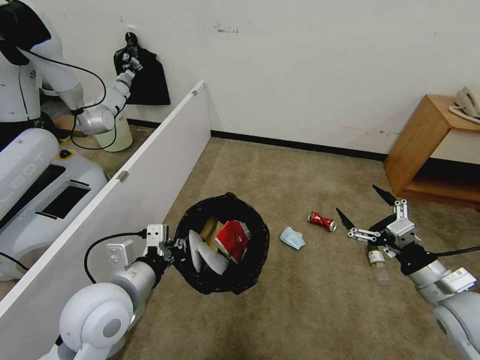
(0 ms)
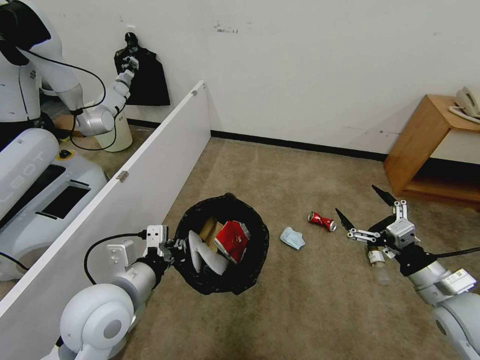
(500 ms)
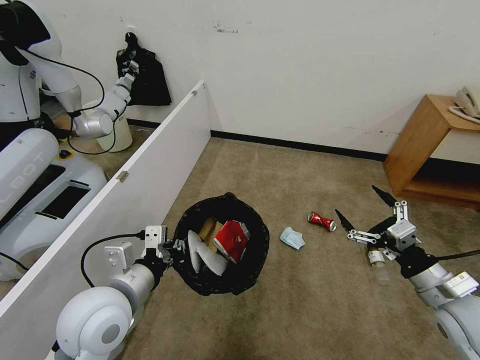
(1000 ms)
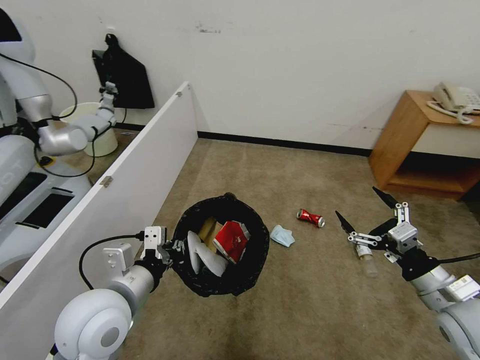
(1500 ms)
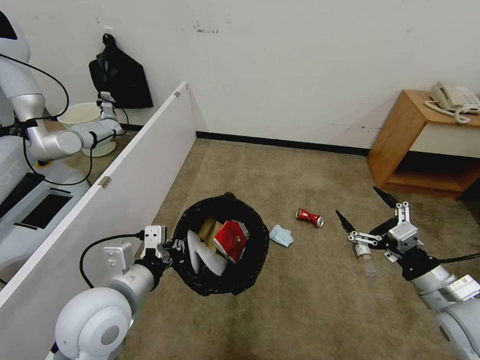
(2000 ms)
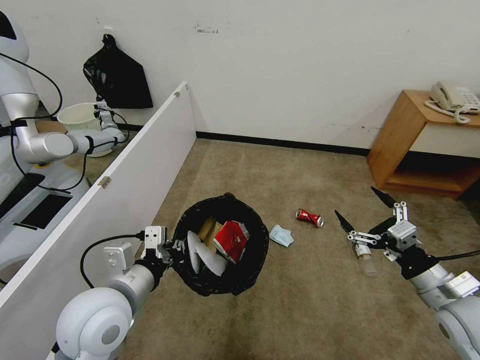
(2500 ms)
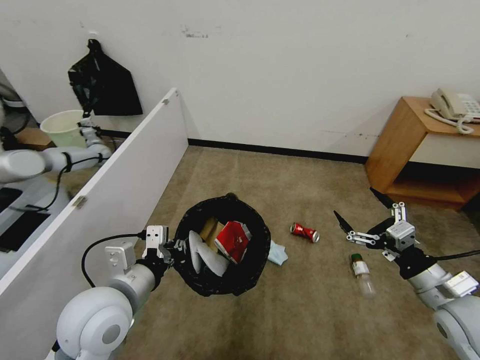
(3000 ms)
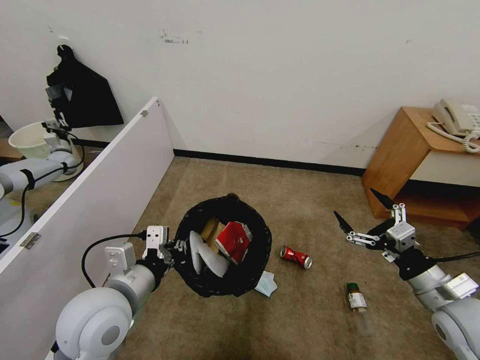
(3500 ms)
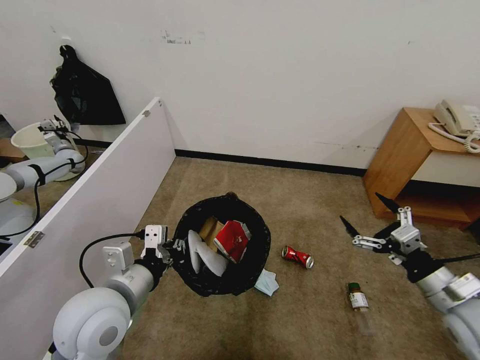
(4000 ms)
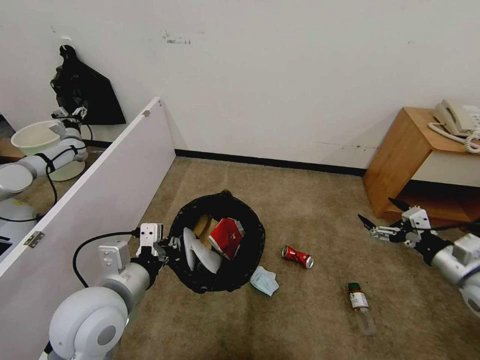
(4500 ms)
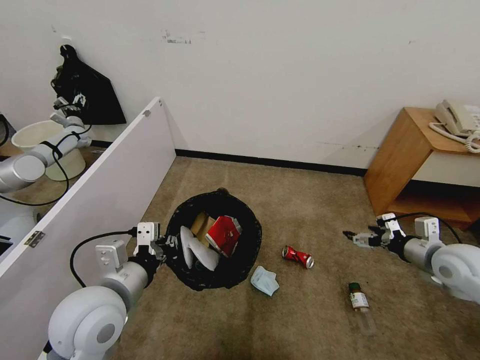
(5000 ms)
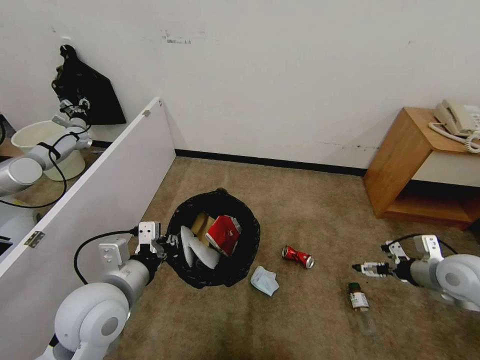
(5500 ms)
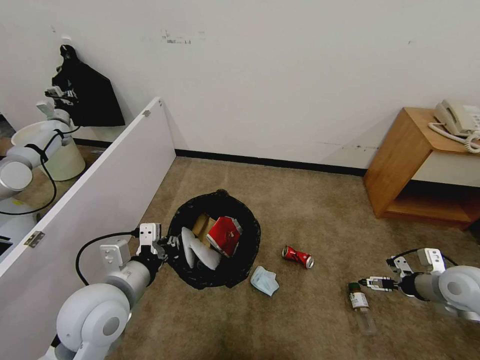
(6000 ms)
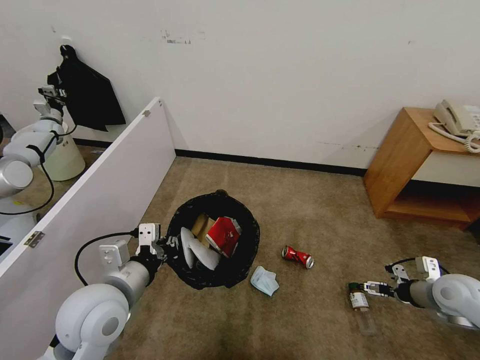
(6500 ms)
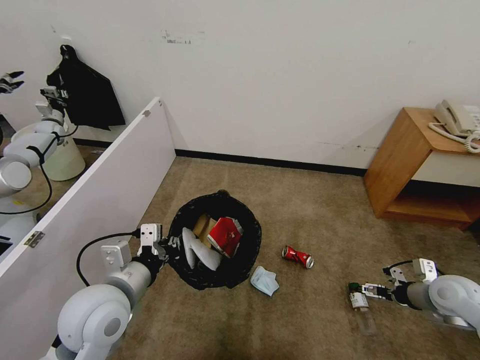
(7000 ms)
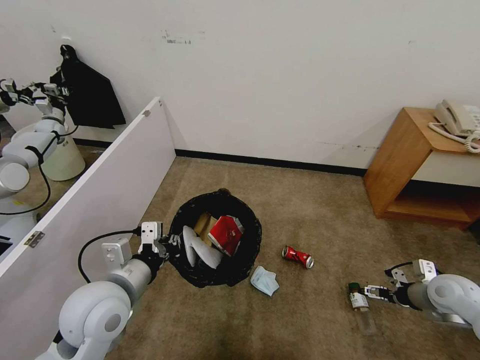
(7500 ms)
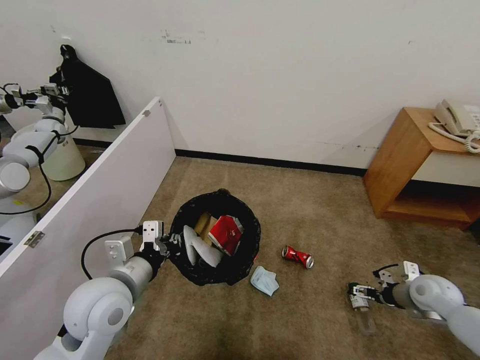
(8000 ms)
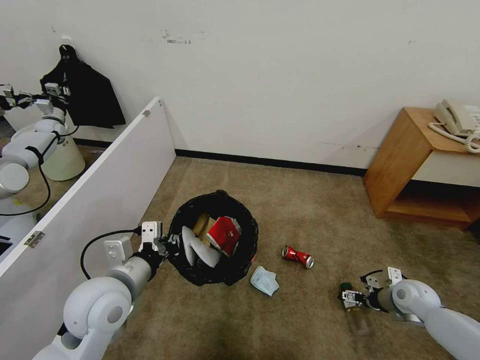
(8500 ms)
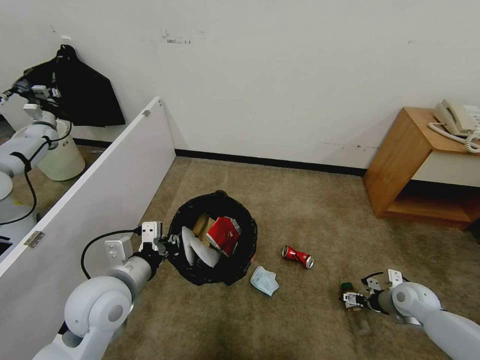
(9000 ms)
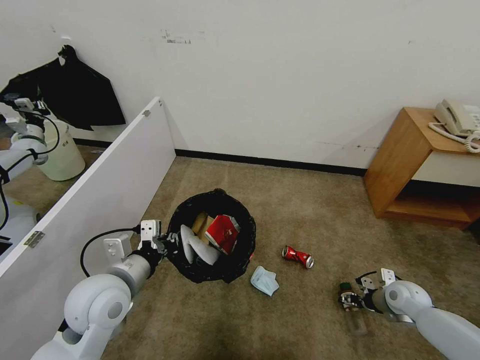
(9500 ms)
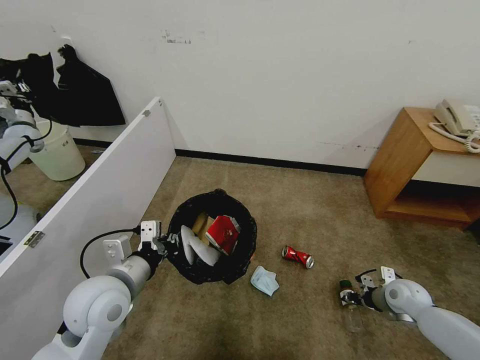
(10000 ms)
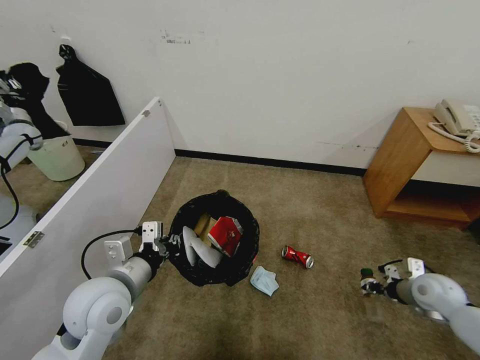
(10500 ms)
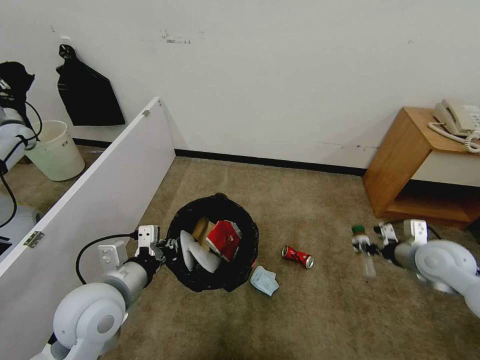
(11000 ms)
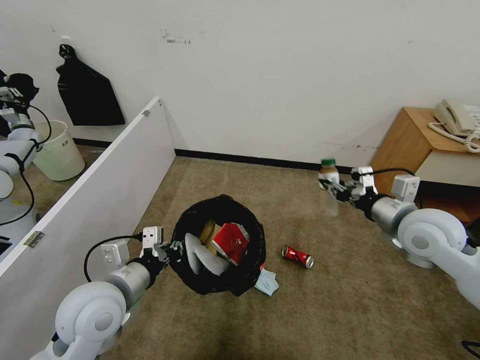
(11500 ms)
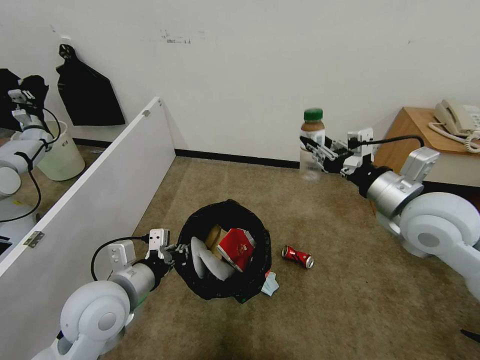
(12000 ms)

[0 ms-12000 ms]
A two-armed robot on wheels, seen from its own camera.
Task of the whole recording: Pick up the trash bin and place the garbage on the floor into it.
4000 ms to 6000 ms: The right gripper goes about 10 cm forward and to the right.
6000 ms to 8000 ms: The right gripper moves downward, some 10 cm.
8000 ms to 10000 ms: The right gripper changes place by roughly 5 cm, and closes.
10000 ms to 12000 ms: The right gripper travels upward and to the left by some 35 cm.

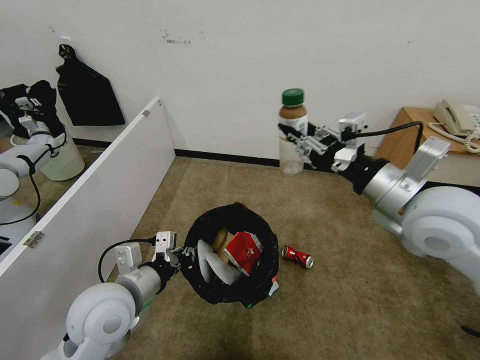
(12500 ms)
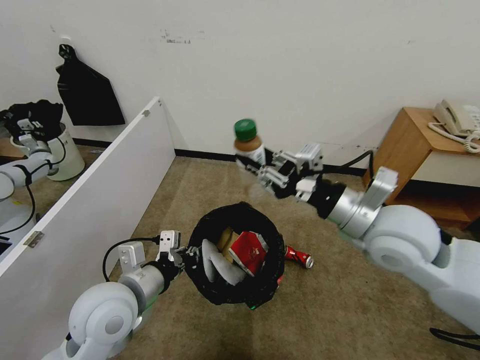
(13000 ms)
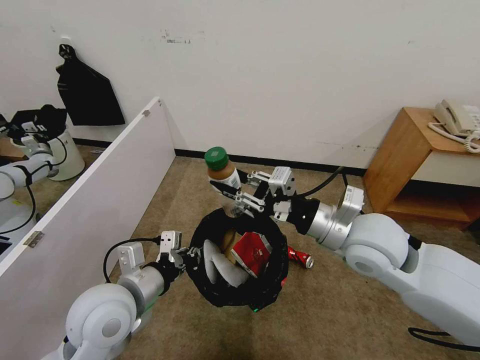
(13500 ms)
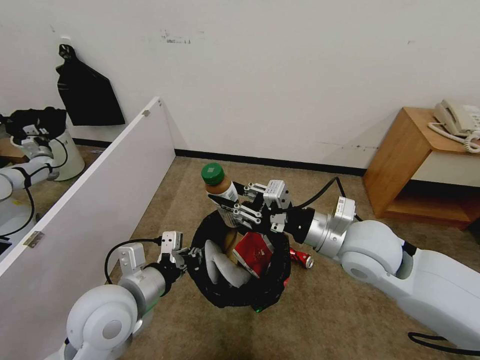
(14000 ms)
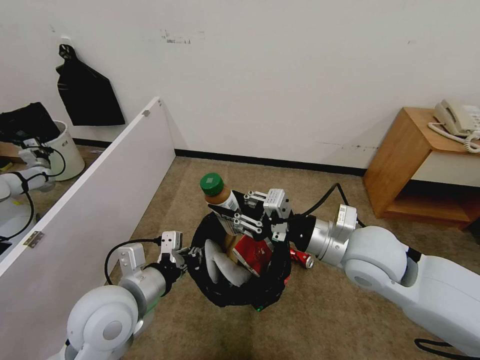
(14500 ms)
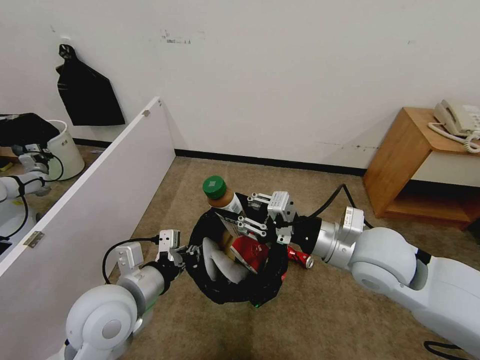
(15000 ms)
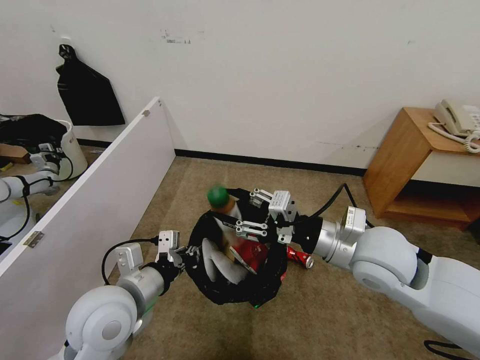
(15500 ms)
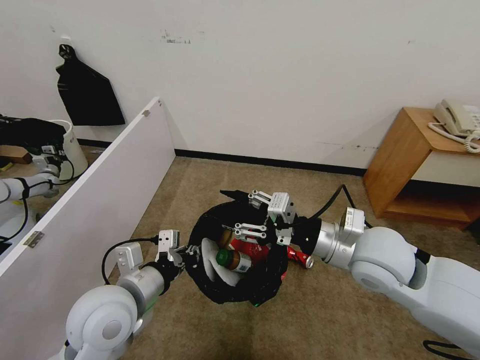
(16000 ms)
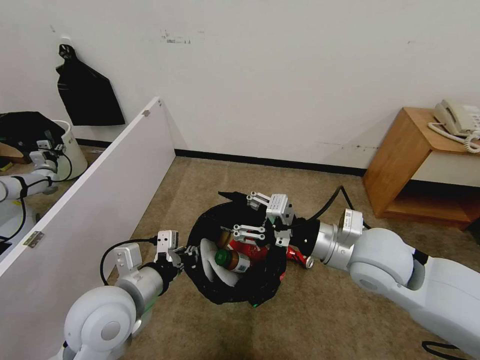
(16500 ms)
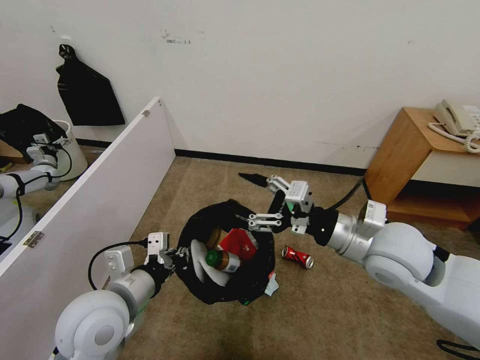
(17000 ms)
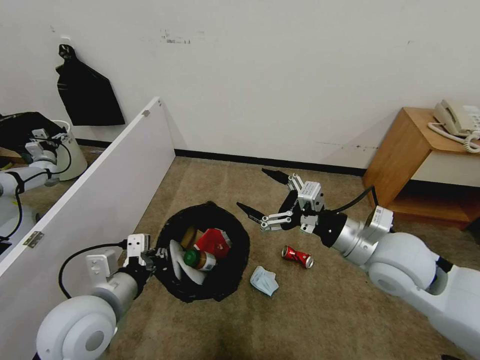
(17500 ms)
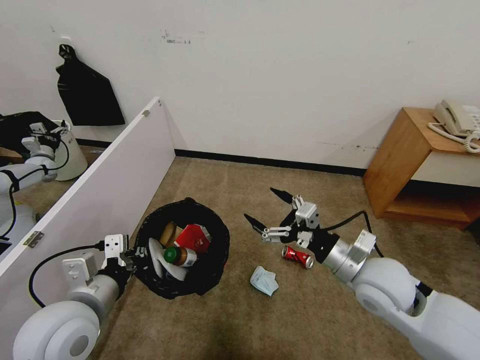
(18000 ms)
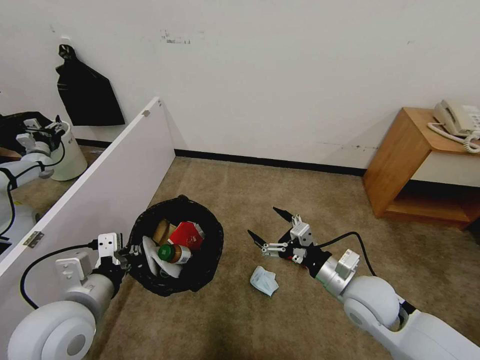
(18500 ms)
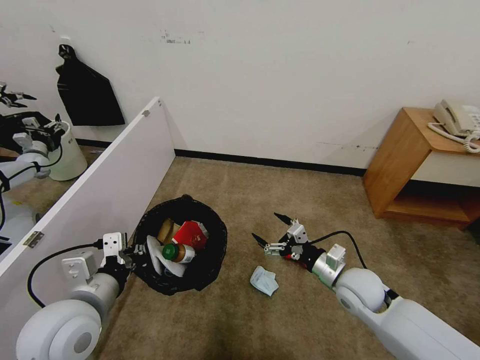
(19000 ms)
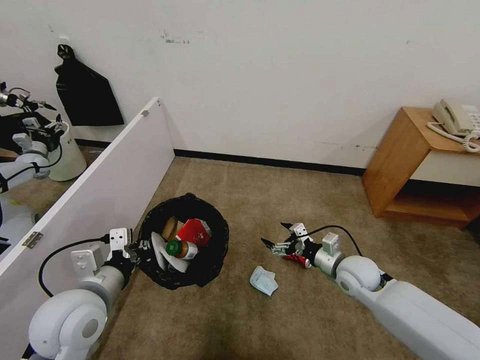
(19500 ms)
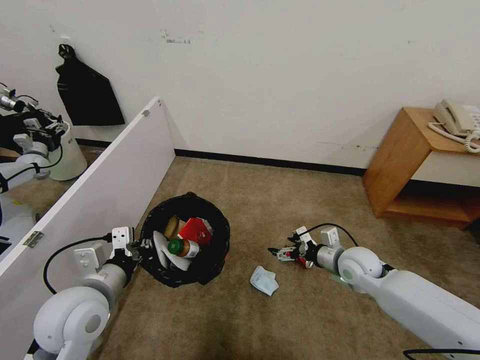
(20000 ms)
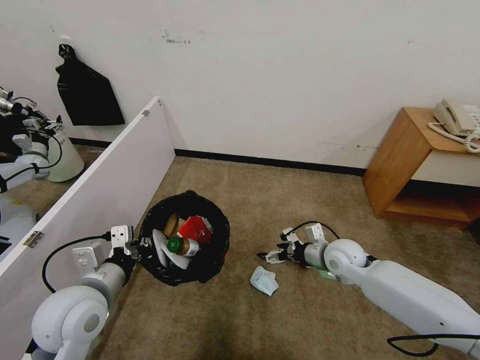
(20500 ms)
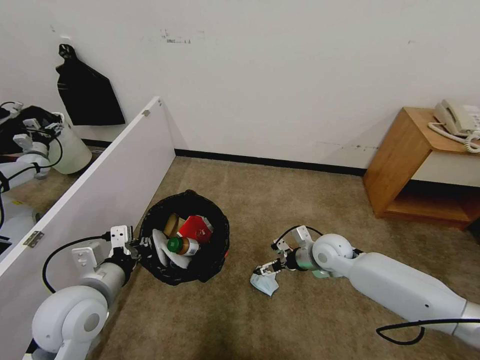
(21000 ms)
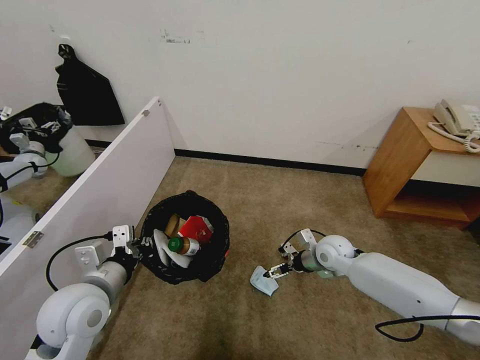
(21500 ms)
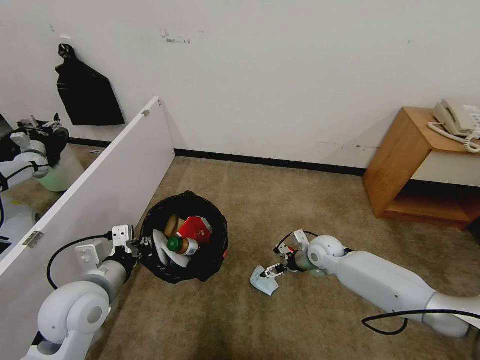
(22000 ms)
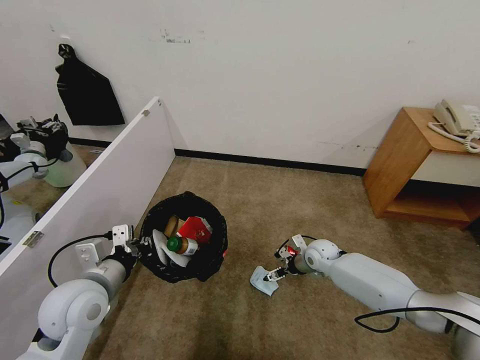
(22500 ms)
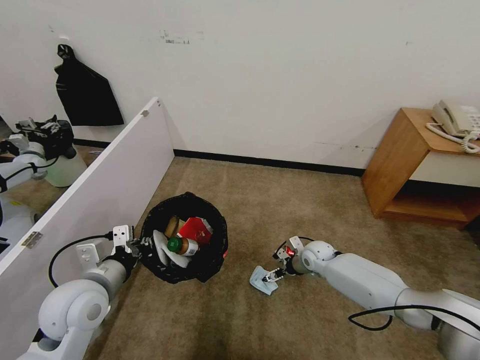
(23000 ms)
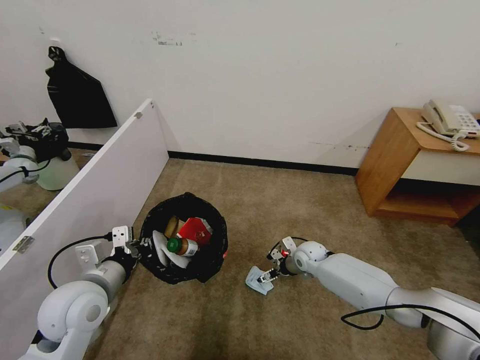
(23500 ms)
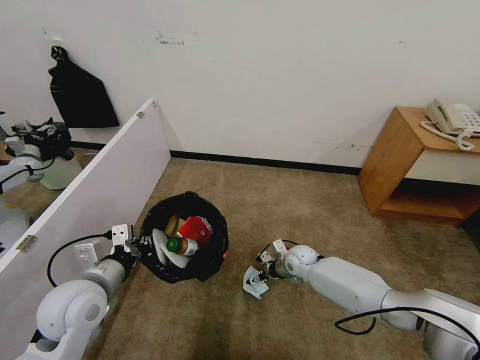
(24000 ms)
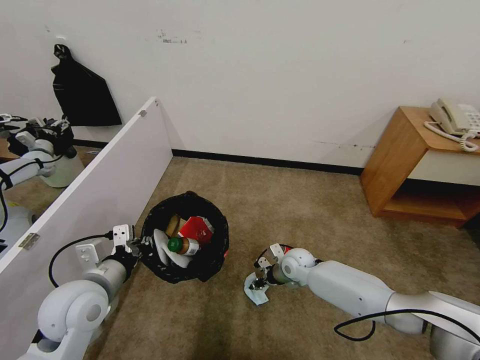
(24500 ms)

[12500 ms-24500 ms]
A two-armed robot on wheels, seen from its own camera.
Task of the whole recording: Pick up the trash bin and place the garbage on the floor into it.
12500 ms to 14500 ms: The right gripper travels downward and to the left by approximately 10 cm.
14500 ms to 16500 ms: Neither gripper changes place.
16500 ms to 18500 ms: The left gripper shifts some 5 cm to the left. Meanwhile the right gripper goes some 15 cm downward, and opens.
18500 ms to 20500 ms: The right gripper heads forward, covering some 10 cm.
20500 ms to 22500 ms: The right gripper shifts some 10 cm downward and forward.
22500 ms to 24500 ms: The right gripper is displaced to the left by approximately 10 cm, and closes up.

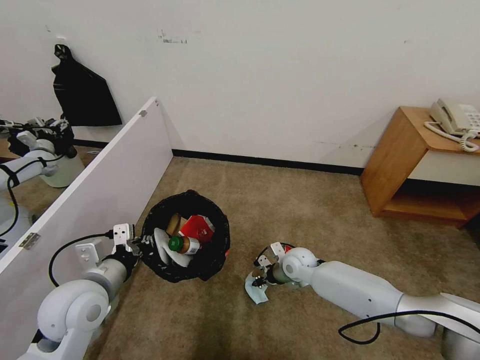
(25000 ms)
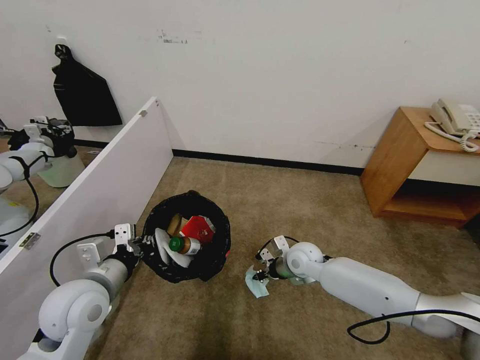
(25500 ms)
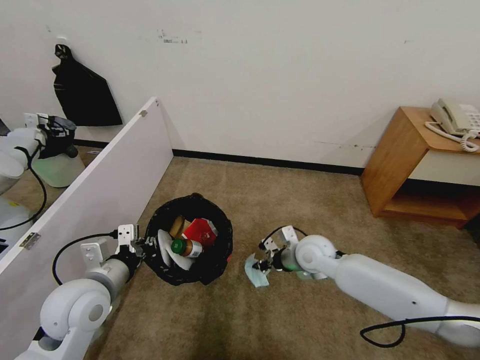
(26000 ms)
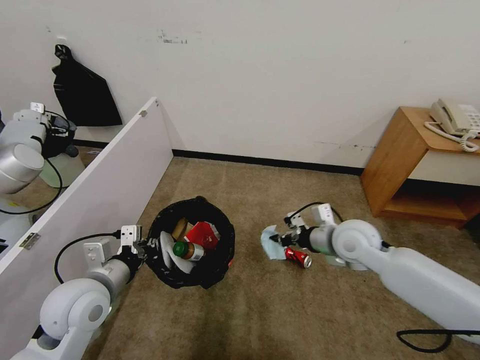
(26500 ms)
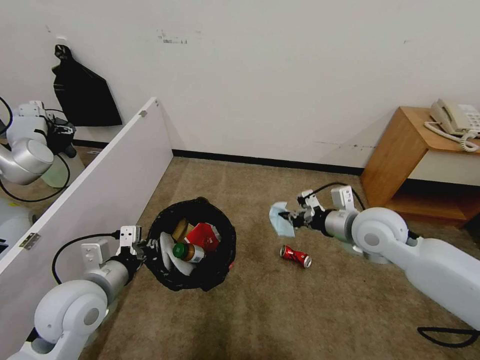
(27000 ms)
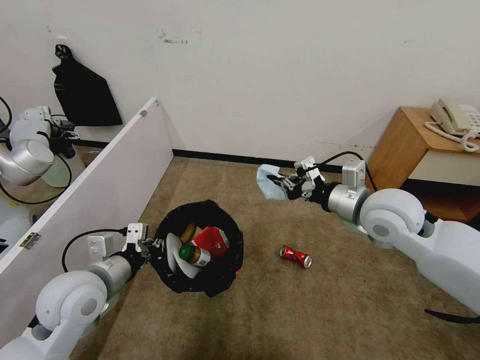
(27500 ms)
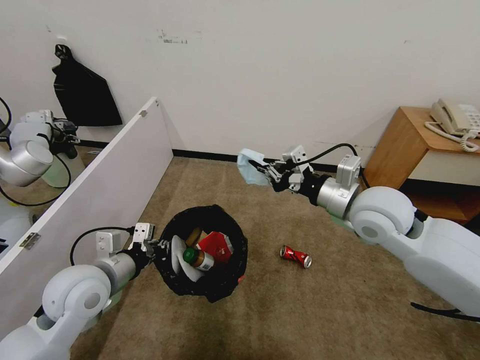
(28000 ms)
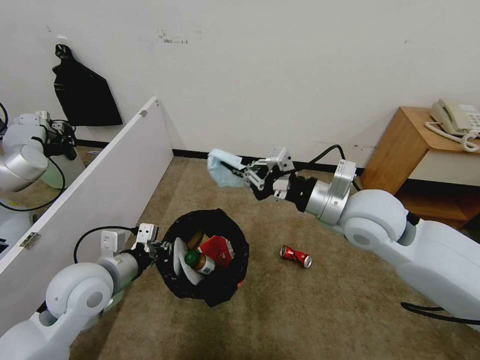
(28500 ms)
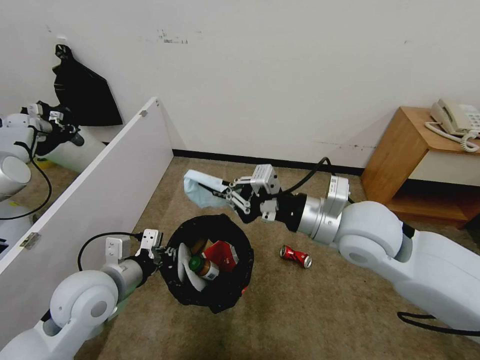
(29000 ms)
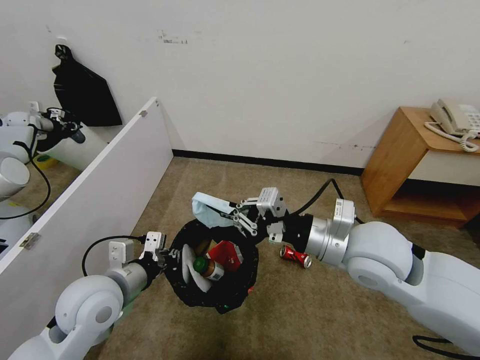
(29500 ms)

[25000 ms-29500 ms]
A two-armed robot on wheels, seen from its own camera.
Task of the whole recording: Pick up the trash bin and place the garbage on the floor into it.
25000 ms to 27000 ms: The right gripper shifts some 25 cm upward and to the right.
27000 ms to 29500 ms: The right gripper moves backward, to the left and upward, some 10 cm.
